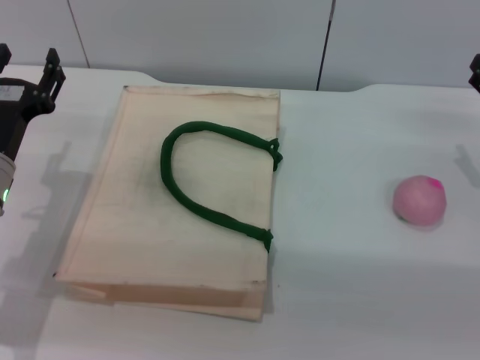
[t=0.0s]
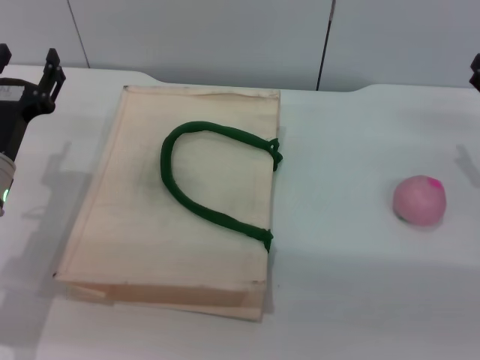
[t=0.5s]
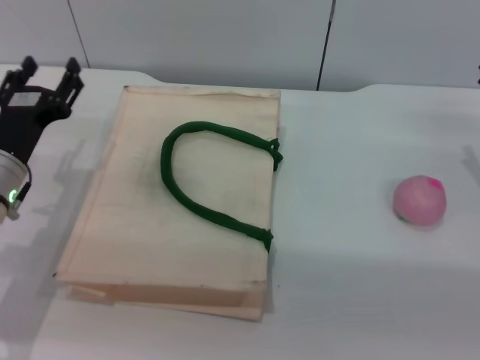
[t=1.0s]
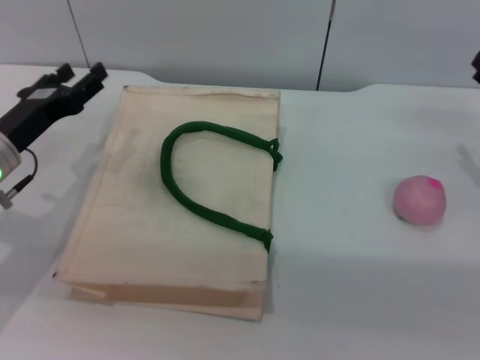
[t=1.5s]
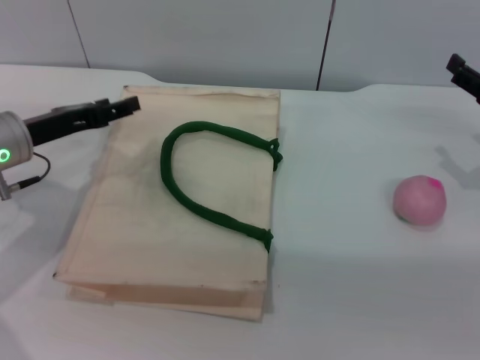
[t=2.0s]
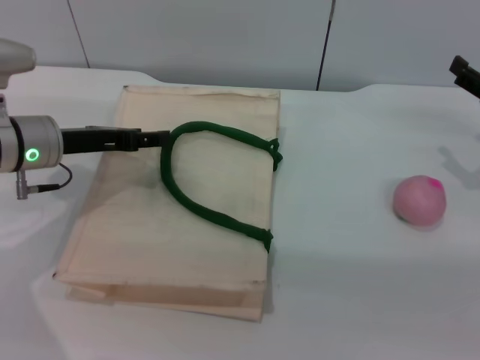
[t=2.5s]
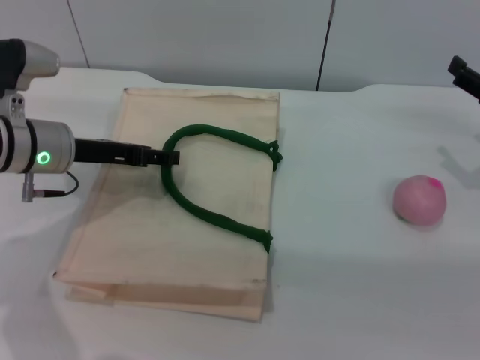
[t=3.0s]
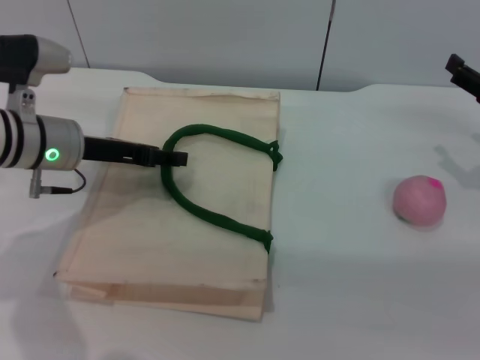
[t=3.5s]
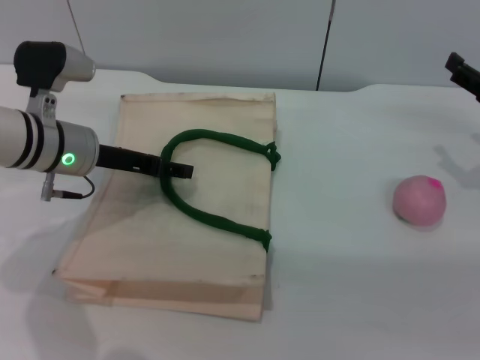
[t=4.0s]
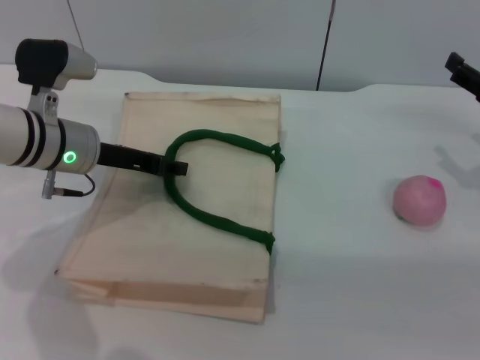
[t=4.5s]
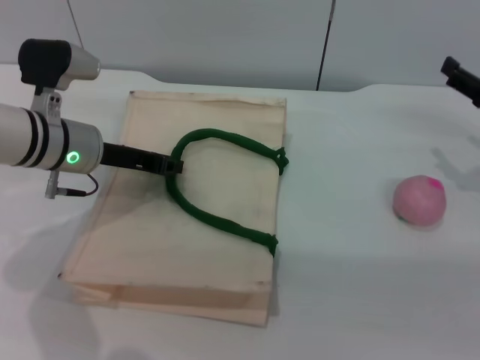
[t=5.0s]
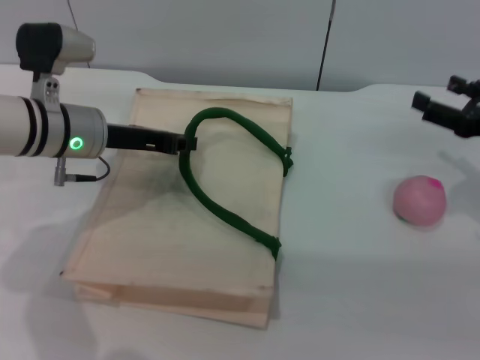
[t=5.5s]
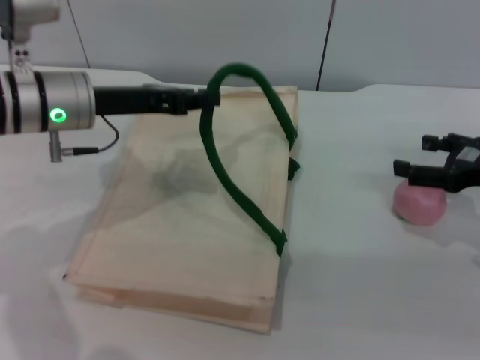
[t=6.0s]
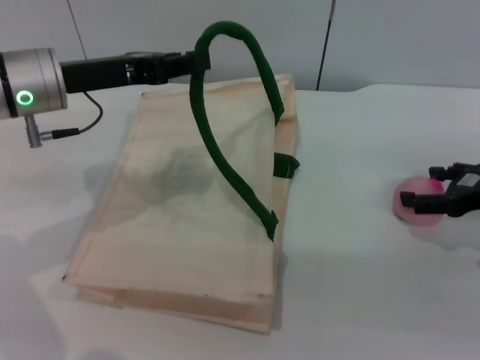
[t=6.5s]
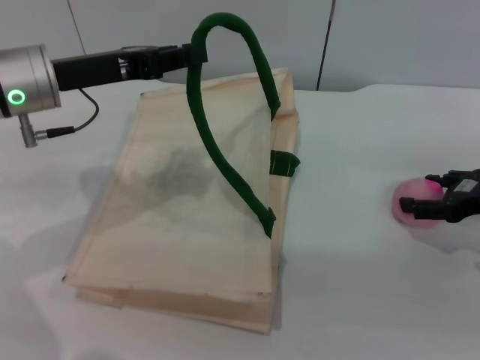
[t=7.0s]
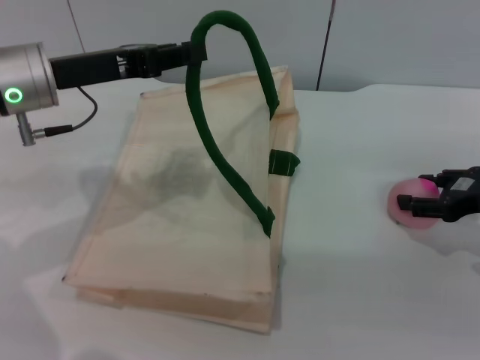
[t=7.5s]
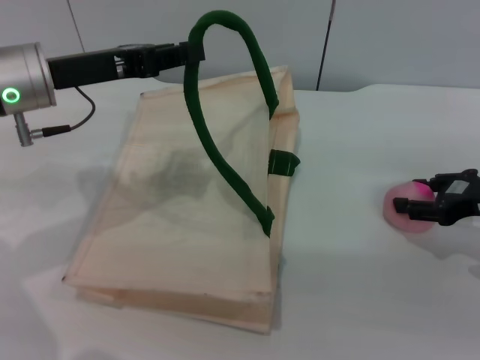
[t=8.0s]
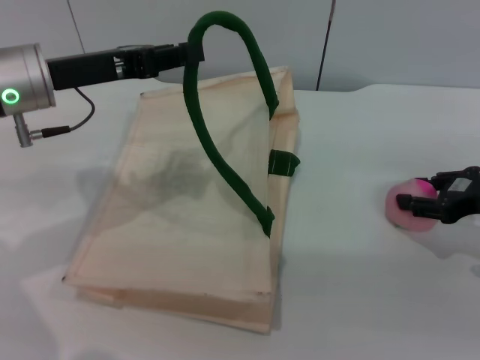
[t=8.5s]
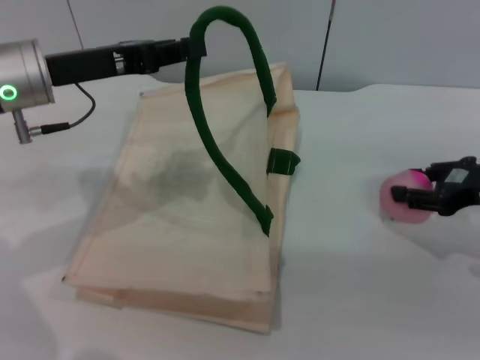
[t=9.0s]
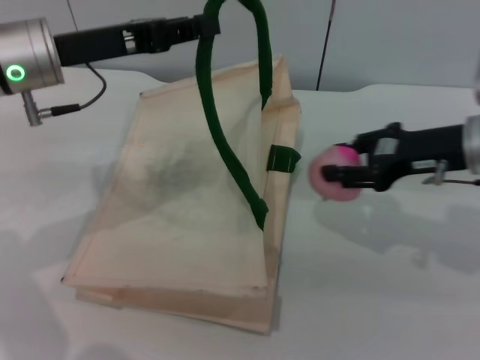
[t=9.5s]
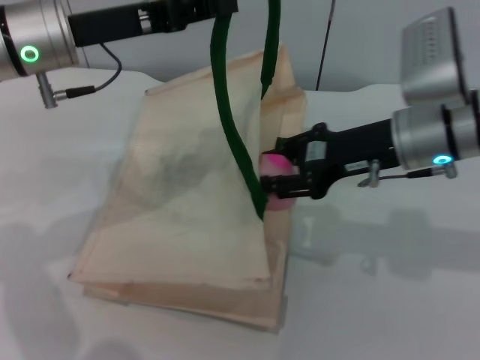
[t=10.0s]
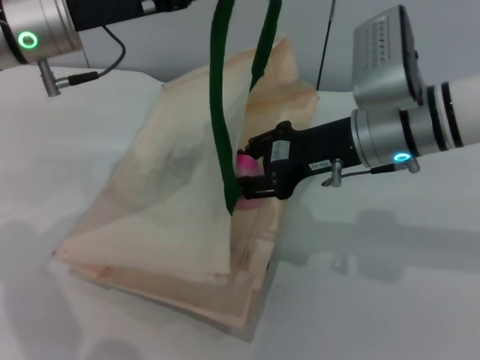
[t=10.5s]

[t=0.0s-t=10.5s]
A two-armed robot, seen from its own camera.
Task of the whole recording: pick up the peach from the table and place it in the white handbag.
Step, t=0.0s to t=5.5s: Lift the woven bag with the left gripper to open it.
Step, t=6.0s to t=9.0s: Pick up the peach with the right gripper.
t=0.0s to t=2.0s: The left gripper travels forward by about 5 cm.
t=2.0s to t=4.0s: The left gripper goes approximately 5 cm to the right.
t=4.0s to t=6.5s: The left gripper shifts roughly 5 cm upward, and closes up.
t=6.5s to t=8.5s: The right gripper closes up.
t=8.5s to t=10.5s: The right gripper shifts some 20 cm to the left. The left gripper moves some 5 cm.

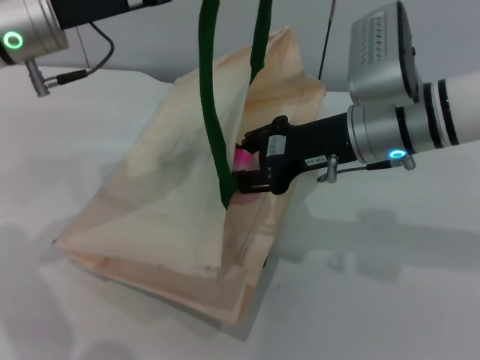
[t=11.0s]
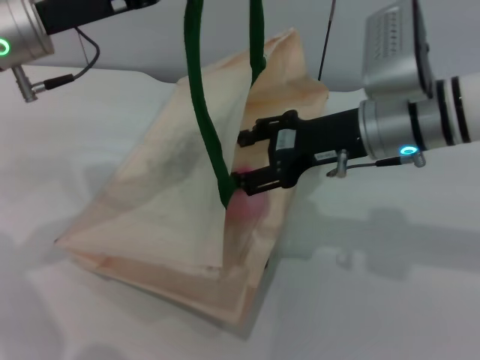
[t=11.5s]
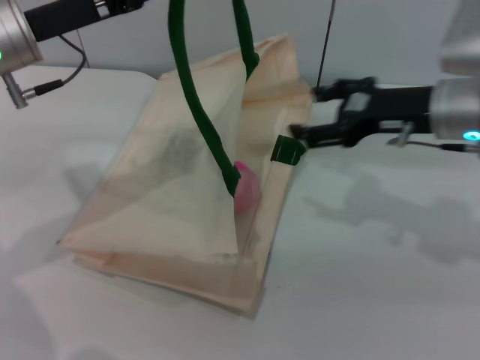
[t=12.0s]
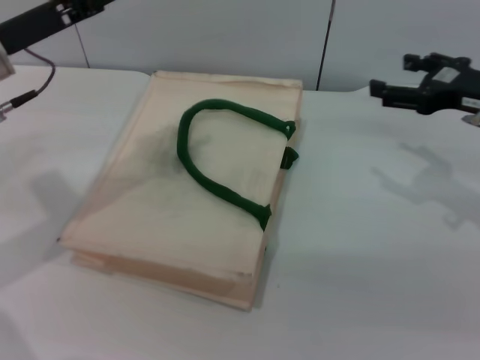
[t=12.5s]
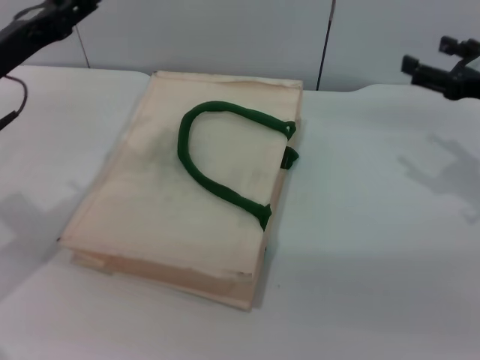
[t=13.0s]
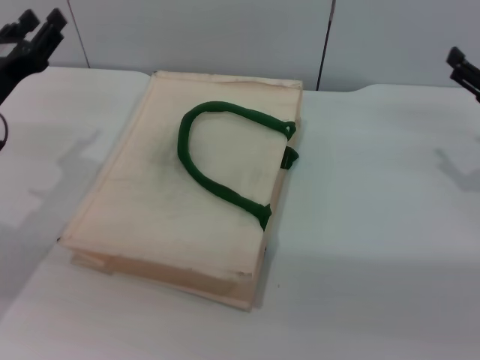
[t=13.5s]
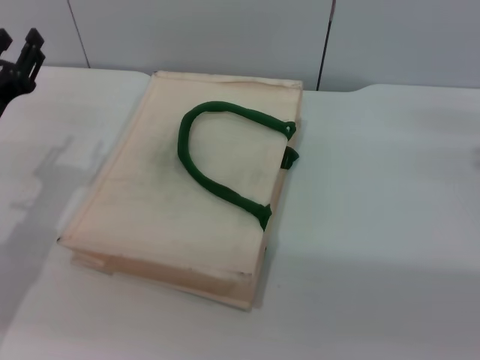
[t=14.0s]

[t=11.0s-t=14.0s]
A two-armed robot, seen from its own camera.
Task of the whole recording: pick up the peach from the table and place it in the white handbag.
Step, t=12.0s to t=12.5s: Lower the woven bag with the left gripper to close it.
t=11.0s to t=12.5s: The left gripper travels to the left by about 5 cm, while the right gripper travels to the right by about 15 cm, and opens.
t=12.5s to t=14.0s: The left gripper goes roughly 10 cm downward and backward, and opens its fingers. The right gripper goes about 10 cm downward and to the right.

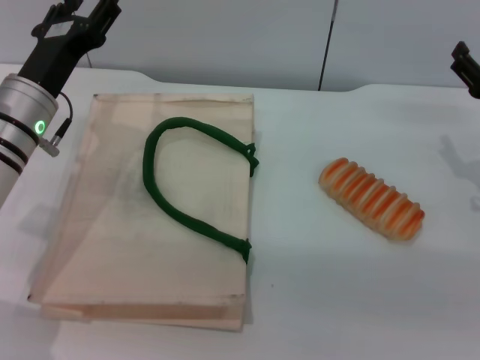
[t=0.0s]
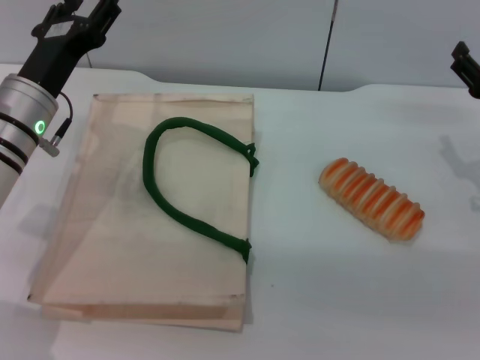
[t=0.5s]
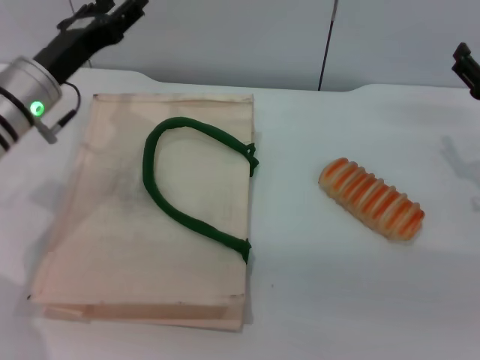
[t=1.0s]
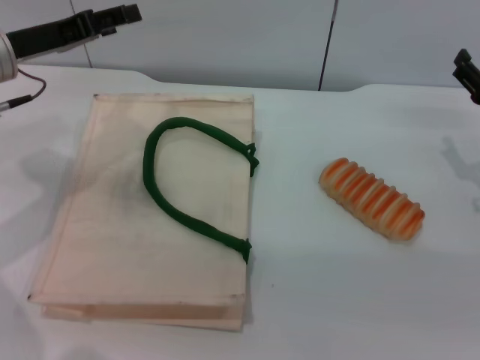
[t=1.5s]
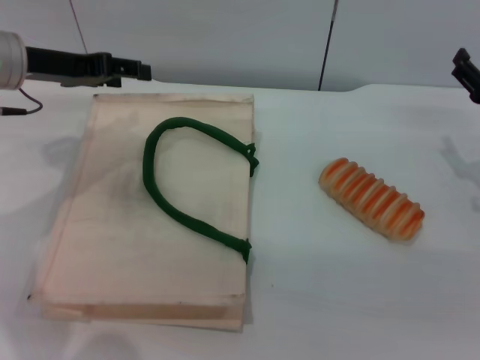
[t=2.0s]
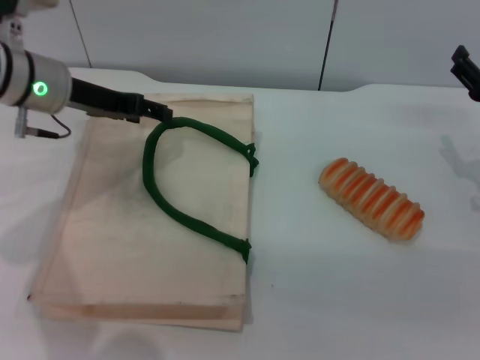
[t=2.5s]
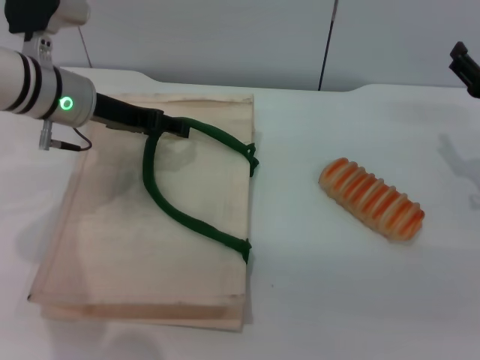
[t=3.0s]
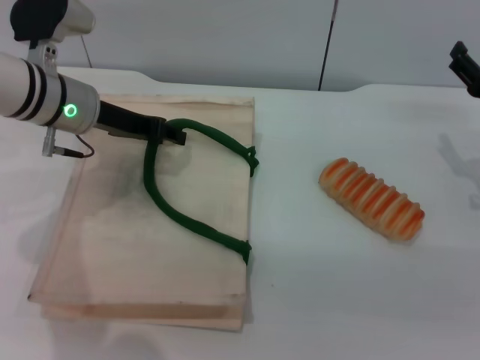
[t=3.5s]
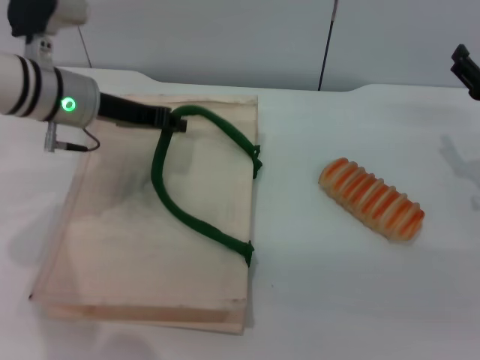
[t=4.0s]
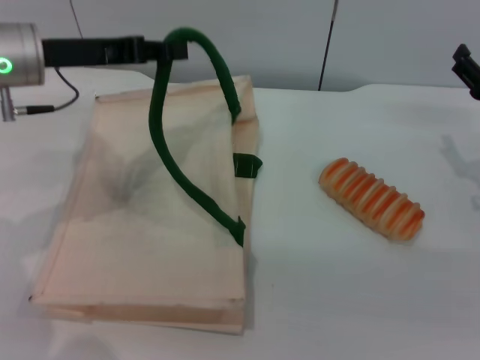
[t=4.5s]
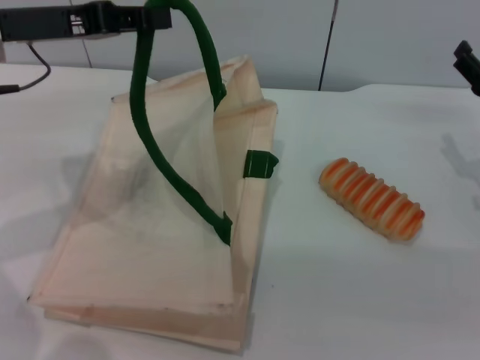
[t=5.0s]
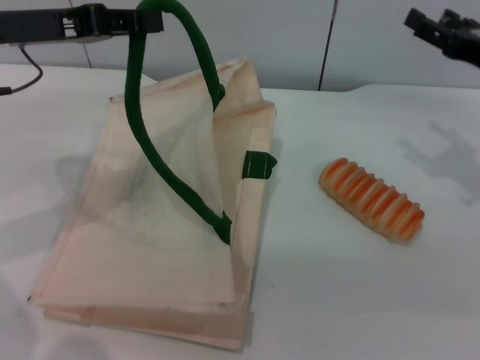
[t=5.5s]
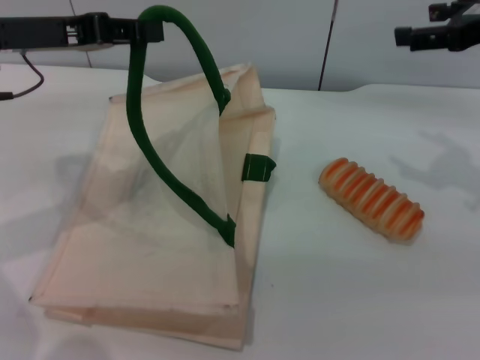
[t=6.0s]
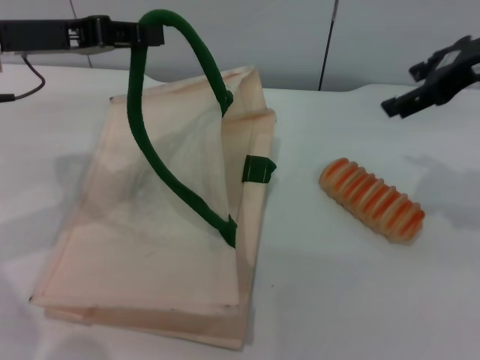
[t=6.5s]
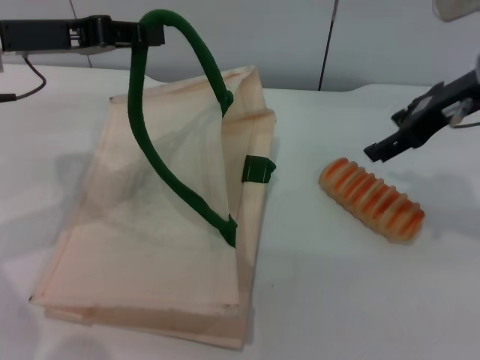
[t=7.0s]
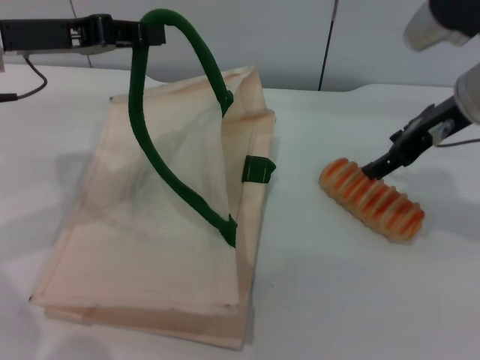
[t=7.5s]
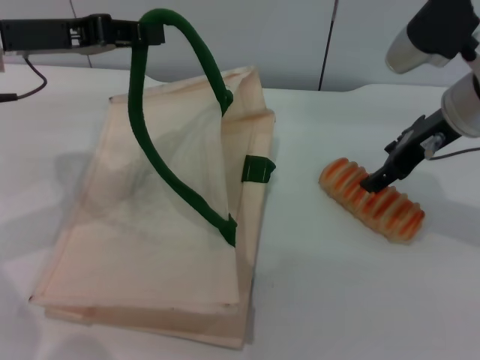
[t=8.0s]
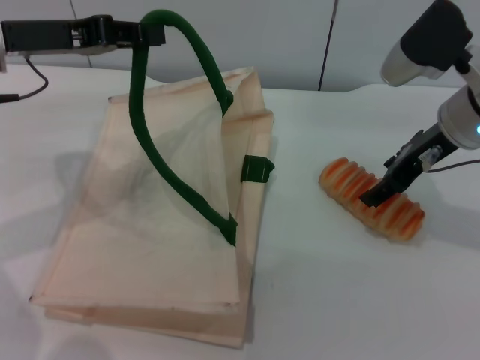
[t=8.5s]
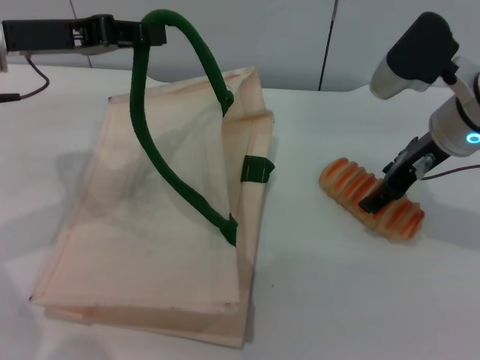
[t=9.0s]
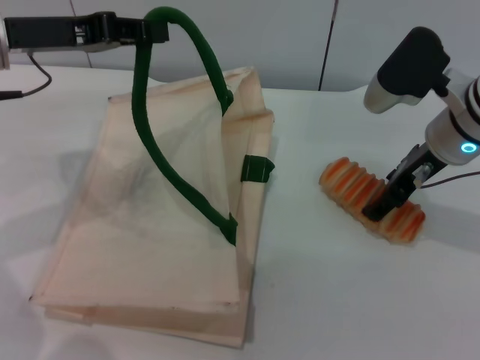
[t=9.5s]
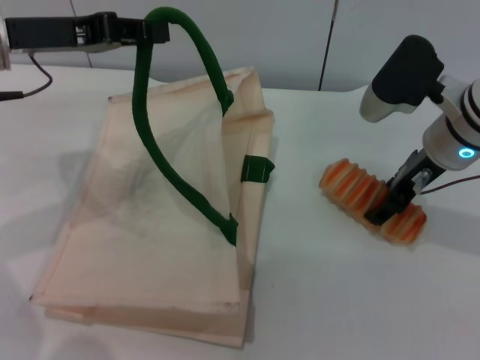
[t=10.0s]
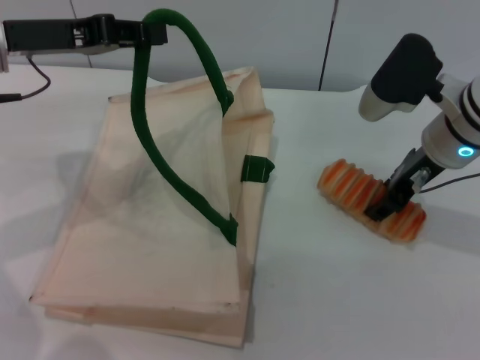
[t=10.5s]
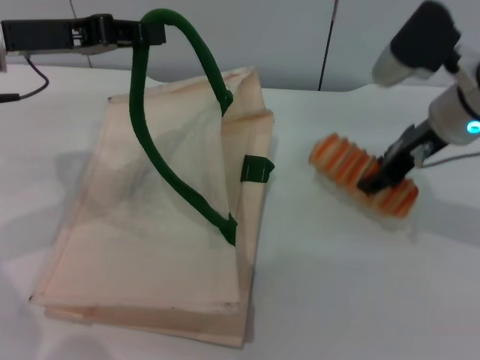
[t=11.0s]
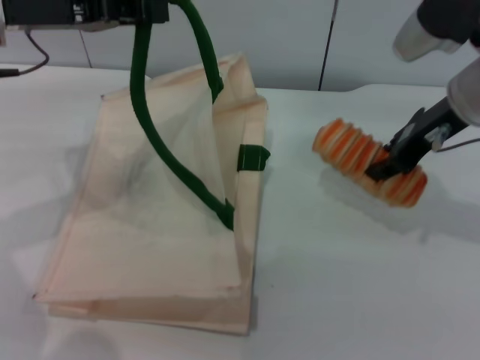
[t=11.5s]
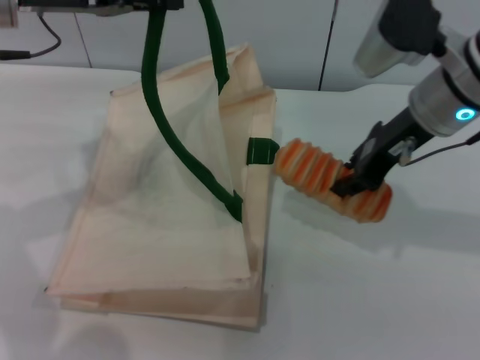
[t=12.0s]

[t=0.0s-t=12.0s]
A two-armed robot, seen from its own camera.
Task of the whole recording: pick up the bread from the table and place it in the white handbag.
Step, t=0.0s to t=5.0s: Lift the woven bag with the left gripper to open it.
Step, t=5.5s to t=11.0s: Pick up the bread with the right gripper.
t=0.0s to t=2.0s: The left gripper shifts approximately 10 cm upward.
t=2.0s to t=4.0s: The left gripper is displaced to the right by roughly 5 cm, and closes.
t=4.0s to t=6.0s: The left gripper heads upward and to the left, covering some 10 cm; the right gripper heads upward, covering roughly 15 cm.
t=6.0s to t=8.0s: The right gripper is displaced to the left and downward by approximately 10 cm.
t=8.0s to t=10.0s: There are only small adjustments of the grippers.
t=10.0s to t=12.0s: The right gripper travels upward by some 5 cm, and closes.
